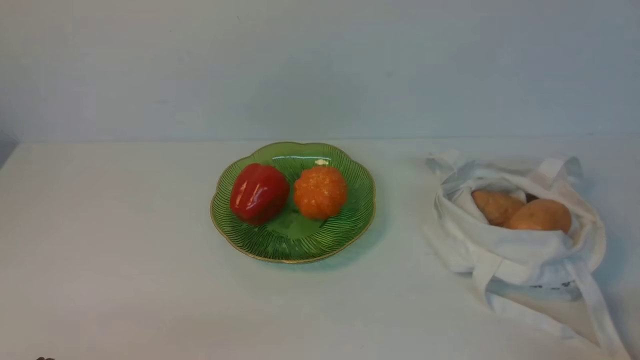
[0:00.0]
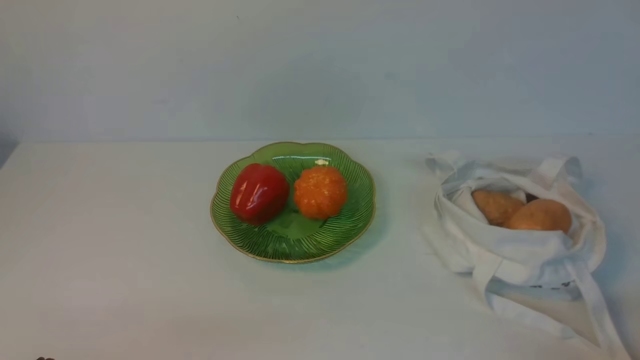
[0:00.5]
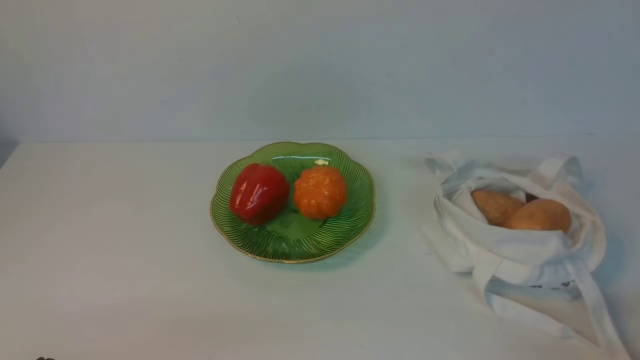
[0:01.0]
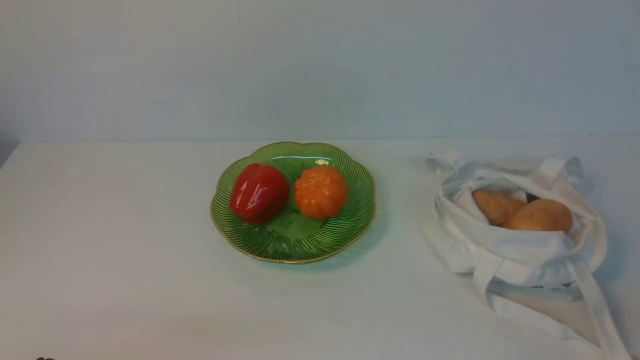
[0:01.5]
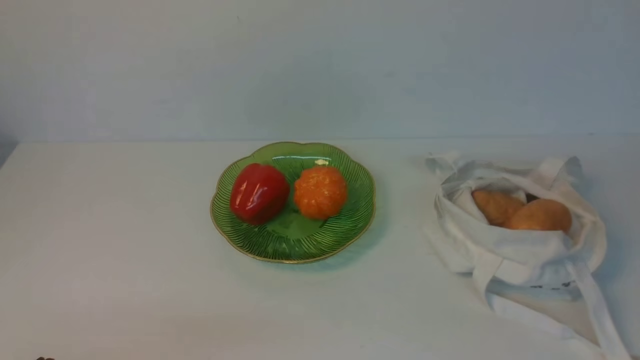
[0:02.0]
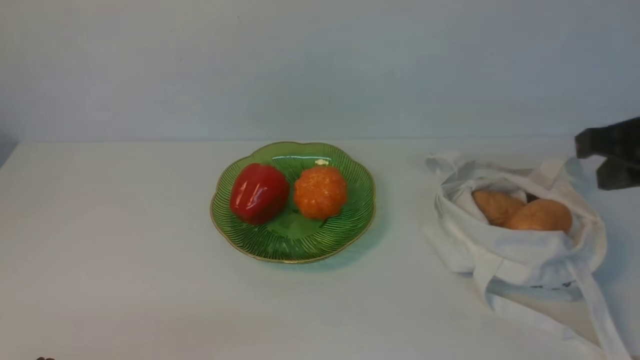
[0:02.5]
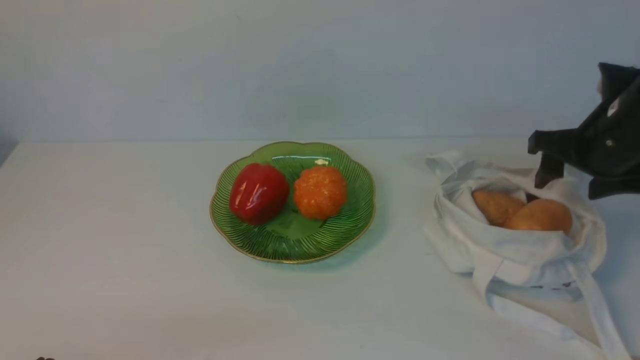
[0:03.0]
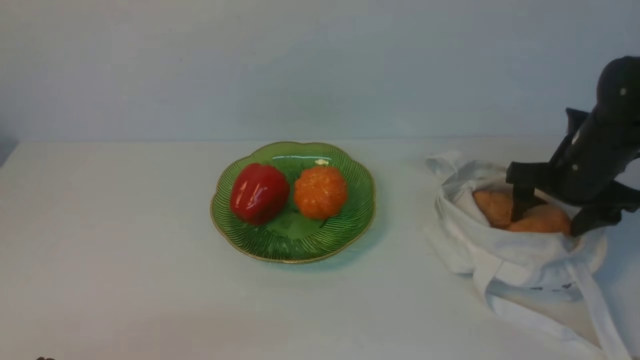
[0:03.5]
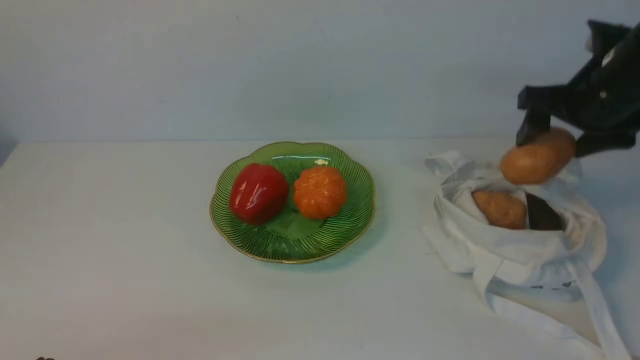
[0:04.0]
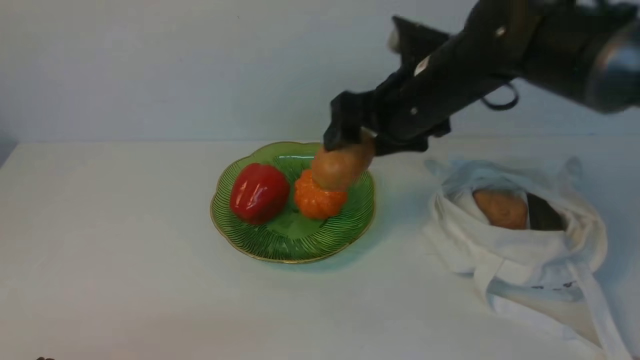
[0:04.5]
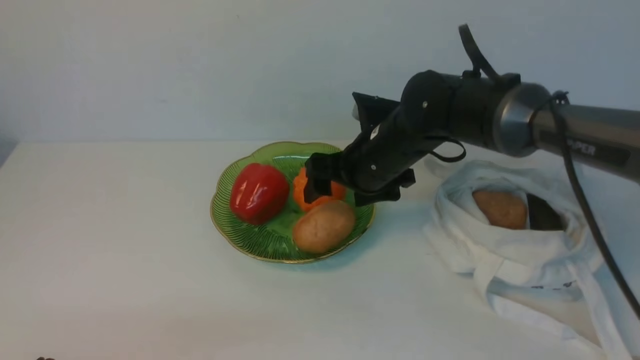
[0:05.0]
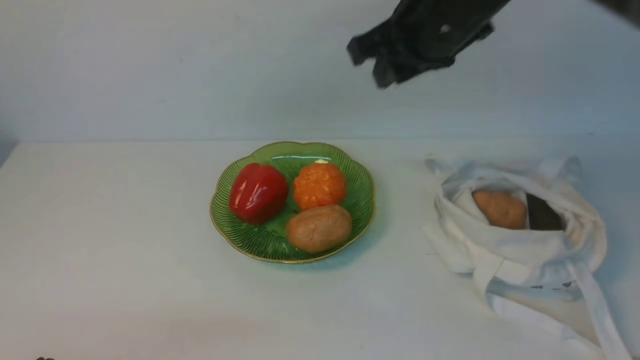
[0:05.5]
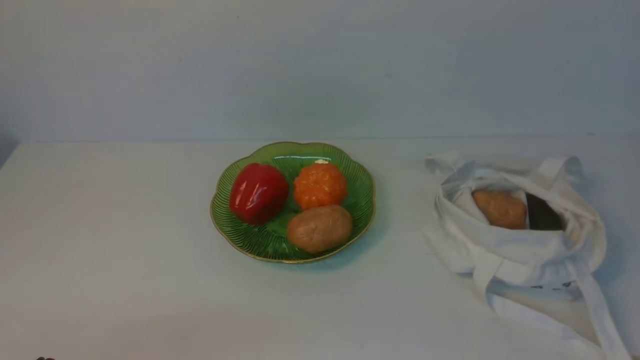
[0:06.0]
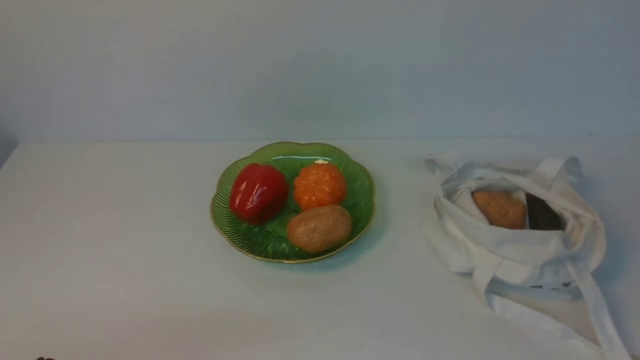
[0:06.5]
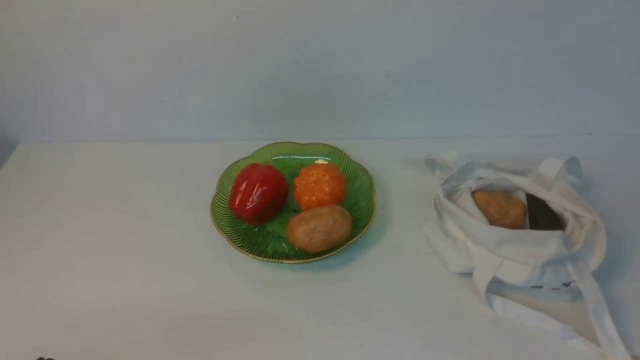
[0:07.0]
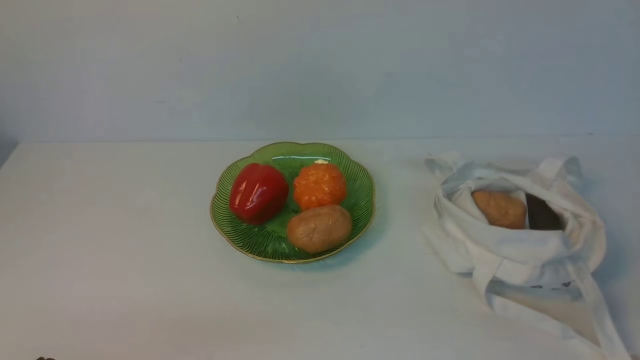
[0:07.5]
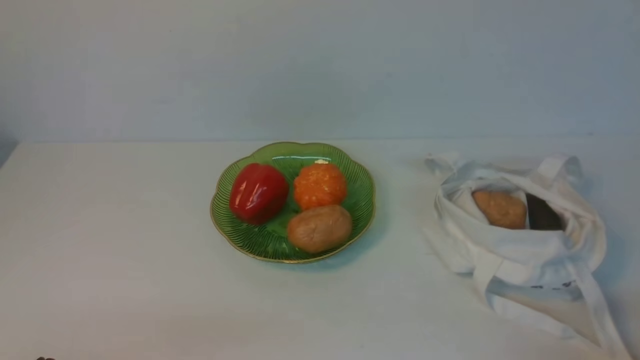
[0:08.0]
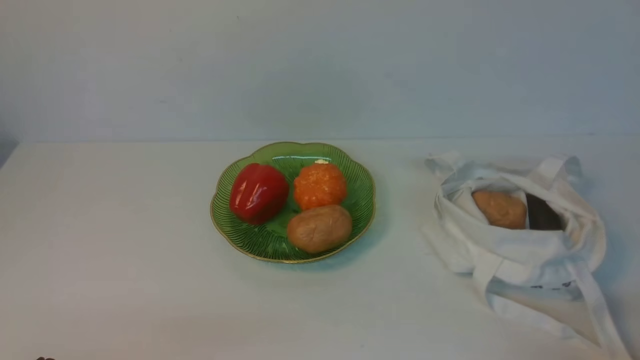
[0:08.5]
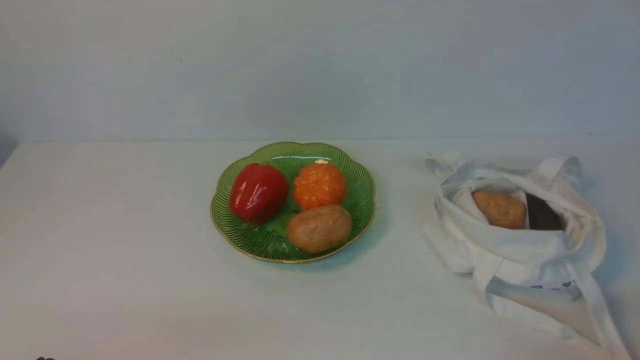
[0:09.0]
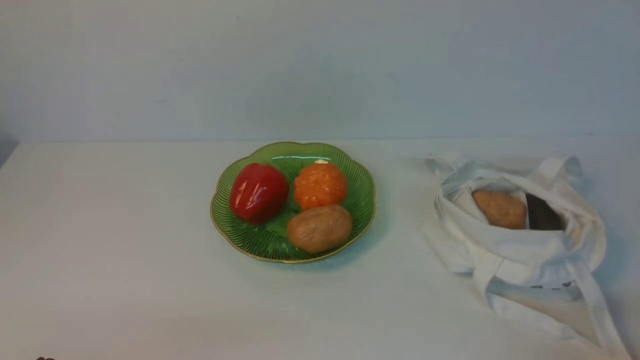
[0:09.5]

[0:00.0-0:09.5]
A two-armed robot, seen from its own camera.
Task of the whole recording: take vegetables from cloth bag on white table place on plate.
Step, 0:00.0 to 0:03.5: Grasp the potato with right gripper.
Step, 0:04.0 to 0:05.0: Place the potato on the plate with right gripper.
0:02.0 to 0:04.0: The right gripper is displaced forward by some 25 cm, and opens its fingers.
0:04.0 to 0:05.5: The right gripper travels to the left and upward by some 15 cm, and closes up.
0:05.5 to 0:07.5: The right gripper moves backward, to the right and downward, roughly 40 cm.
